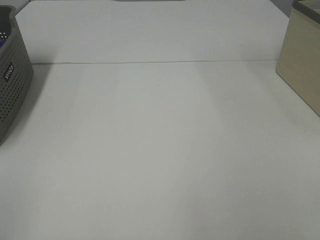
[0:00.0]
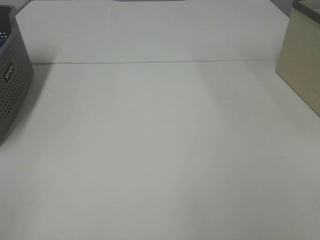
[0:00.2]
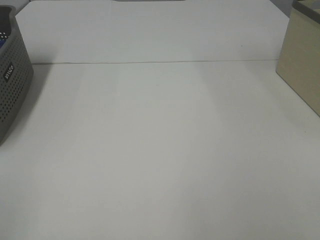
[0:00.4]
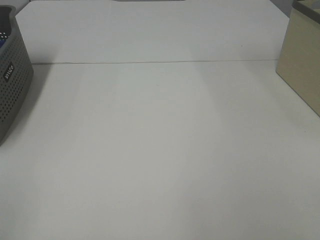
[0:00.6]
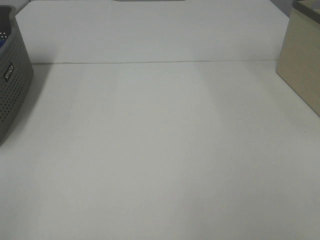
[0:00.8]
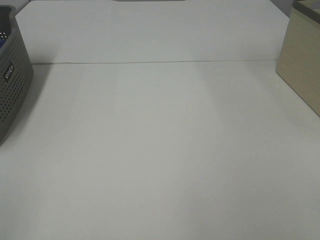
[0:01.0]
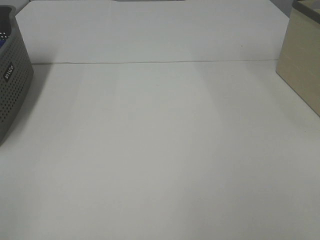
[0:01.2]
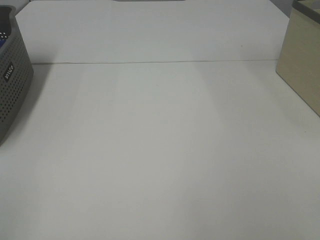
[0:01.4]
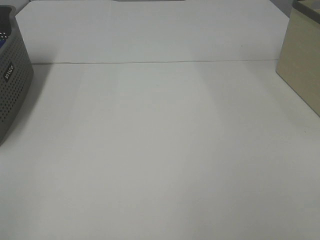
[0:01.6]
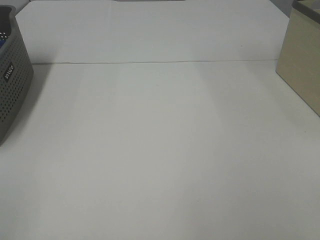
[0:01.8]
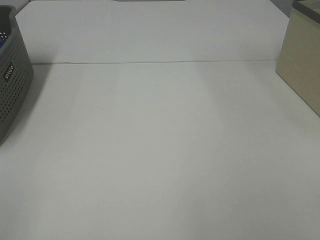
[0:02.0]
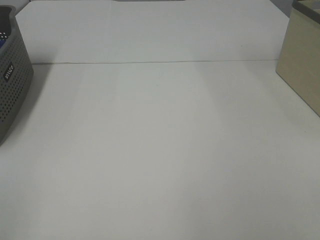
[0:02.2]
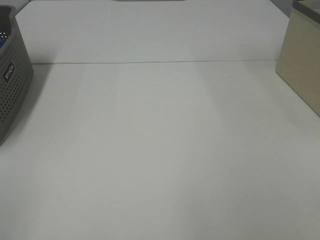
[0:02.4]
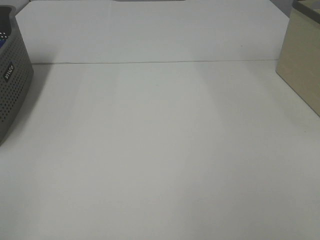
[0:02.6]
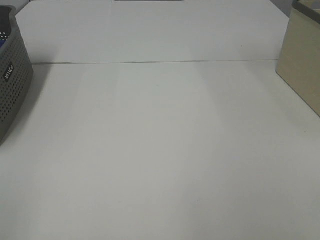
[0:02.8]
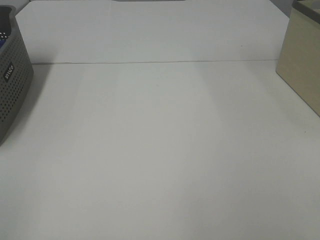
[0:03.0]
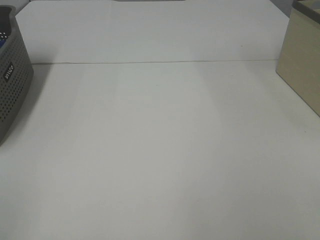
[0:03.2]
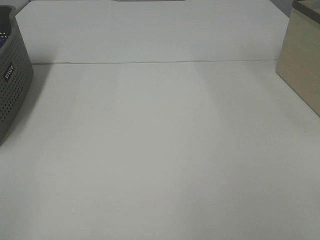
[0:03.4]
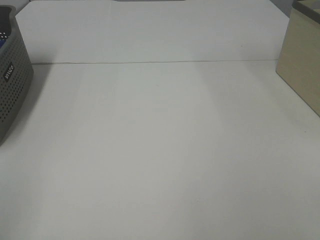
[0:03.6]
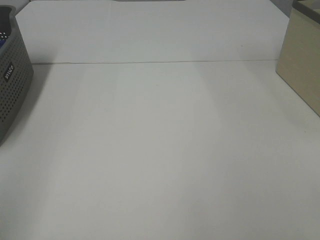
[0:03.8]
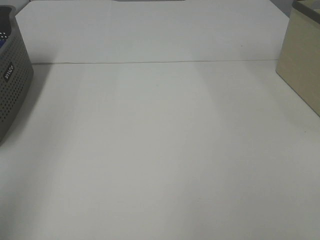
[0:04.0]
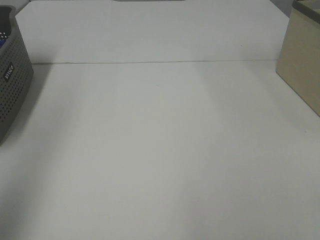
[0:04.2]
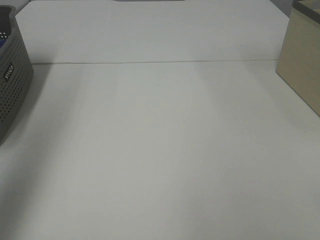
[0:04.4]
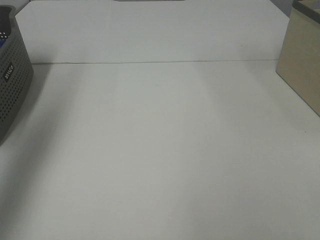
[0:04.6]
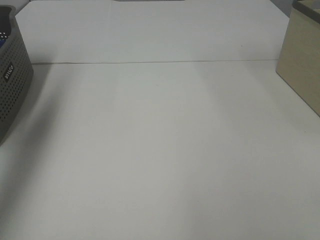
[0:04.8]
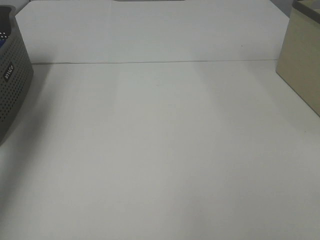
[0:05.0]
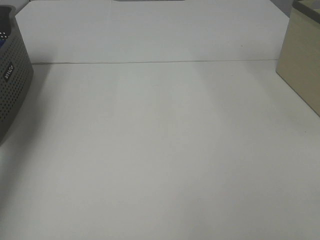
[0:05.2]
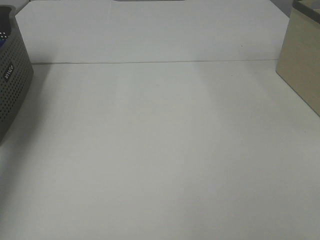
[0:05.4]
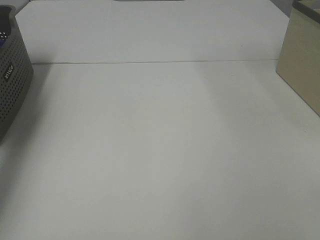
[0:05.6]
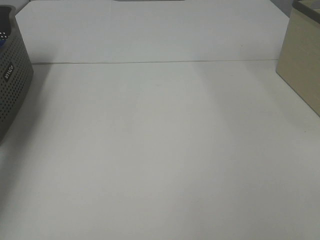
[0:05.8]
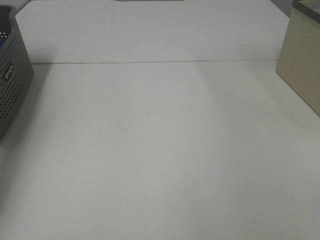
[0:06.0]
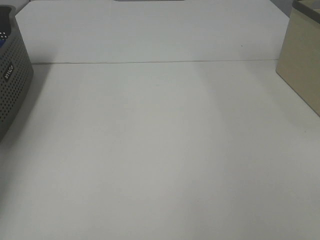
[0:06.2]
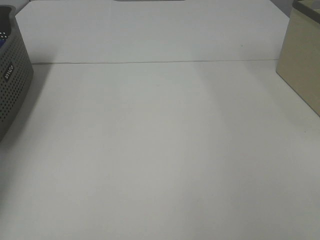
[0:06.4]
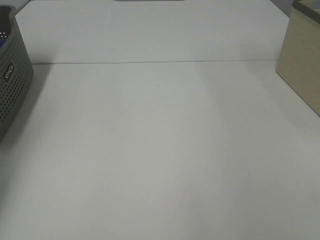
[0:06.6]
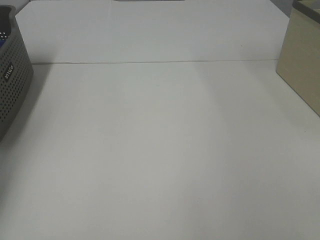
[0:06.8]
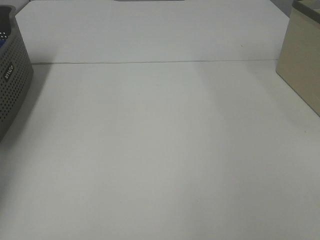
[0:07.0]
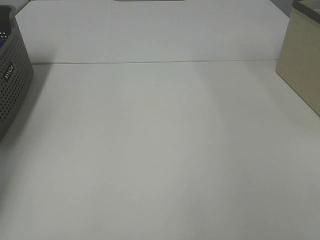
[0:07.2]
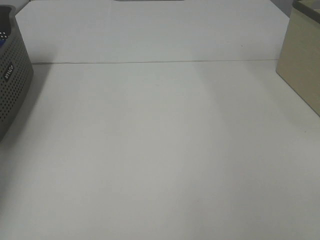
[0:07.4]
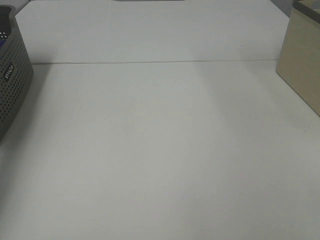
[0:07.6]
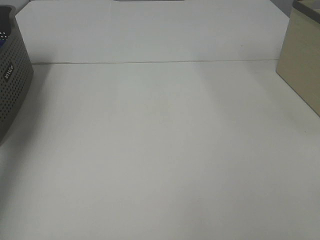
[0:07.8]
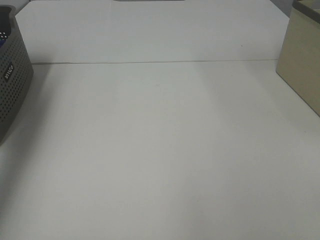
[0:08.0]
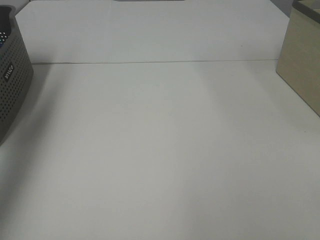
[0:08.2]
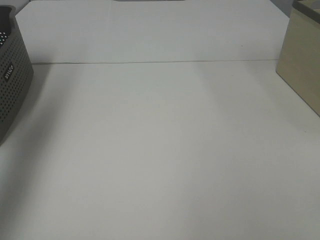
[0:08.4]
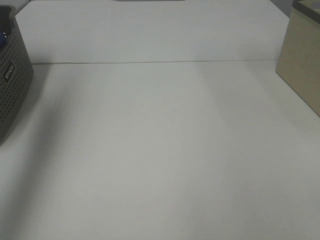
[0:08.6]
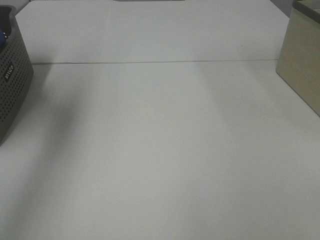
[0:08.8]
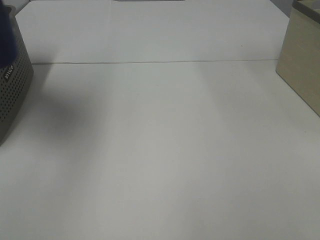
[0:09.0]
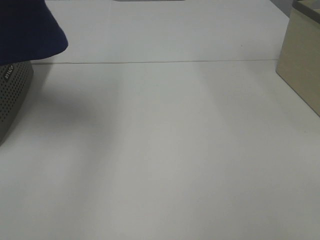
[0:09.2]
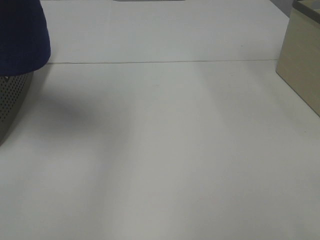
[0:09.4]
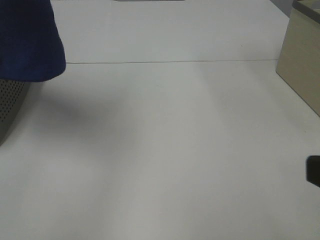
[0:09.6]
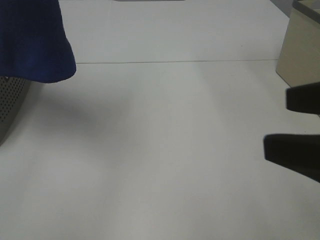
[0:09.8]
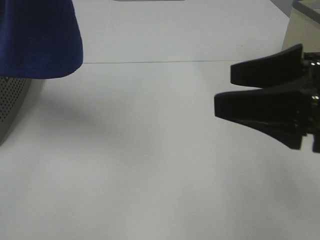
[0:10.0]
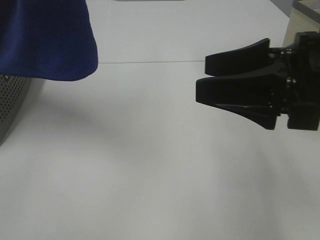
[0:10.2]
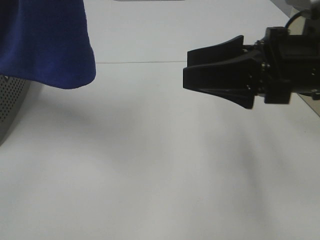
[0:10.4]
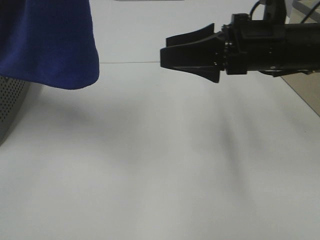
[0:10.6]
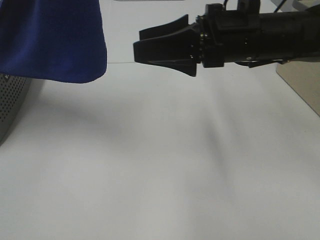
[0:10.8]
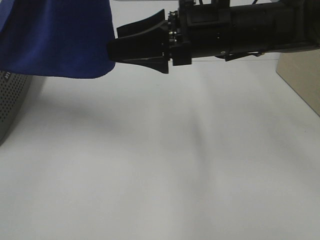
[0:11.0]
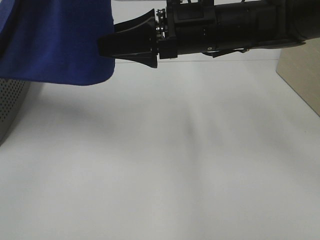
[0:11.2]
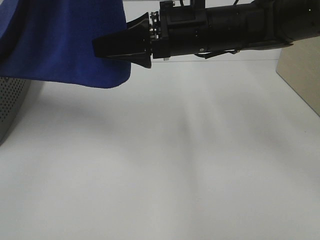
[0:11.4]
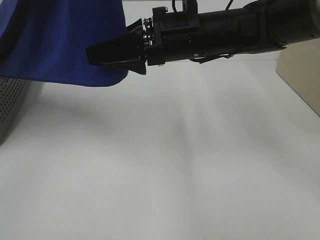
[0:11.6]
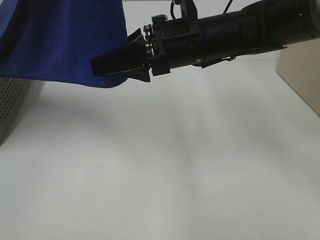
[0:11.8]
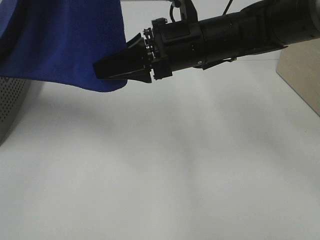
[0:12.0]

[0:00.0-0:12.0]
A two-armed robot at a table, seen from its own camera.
Task of the whole recording: Remove the towel and place it.
0:00.0 to 0:03.0: Both grippers stay put.
0:03.0 to 0:04.4: The left gripper moves forward and upward, some 30 cm.
0:04.4 to 0:06.0: The left gripper moves downward and forward, about 35 cm.
0:07.6 to 0:09.0: The left gripper heads upward, backward and to the right, covering about 35 cm.
0:09.0 to 0:10.4: The right gripper travels forward and to the left by some 30 cm. The left gripper is displaced to the right by approximately 10 cm.
0:10.4 to 0:12.0: The right gripper moves to the left and forward, some 15 cm, and closes its fingers.

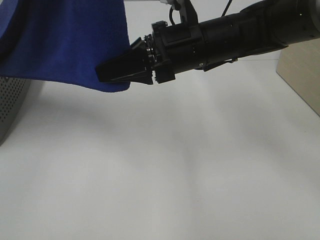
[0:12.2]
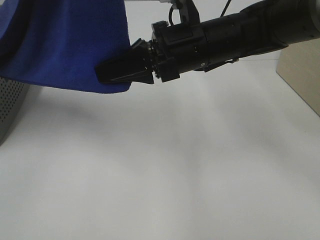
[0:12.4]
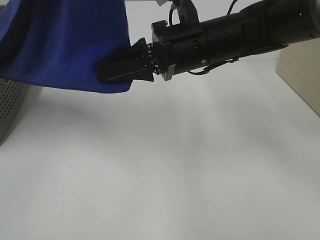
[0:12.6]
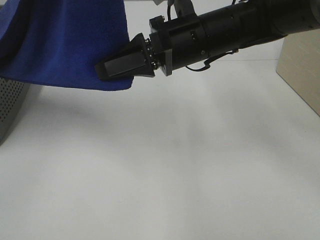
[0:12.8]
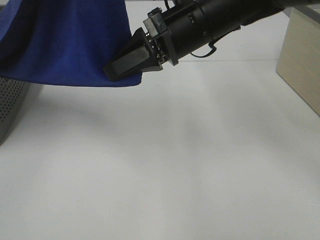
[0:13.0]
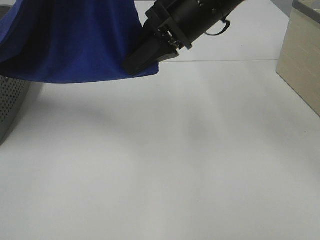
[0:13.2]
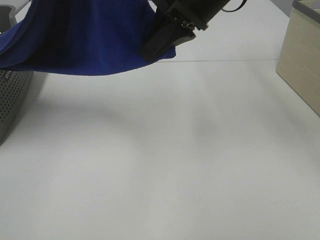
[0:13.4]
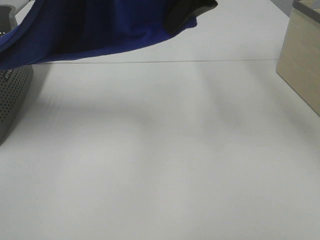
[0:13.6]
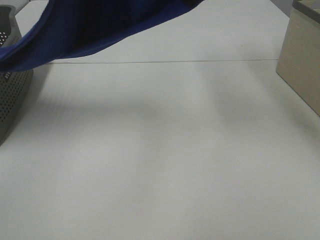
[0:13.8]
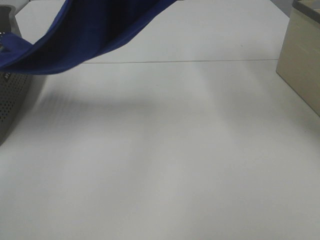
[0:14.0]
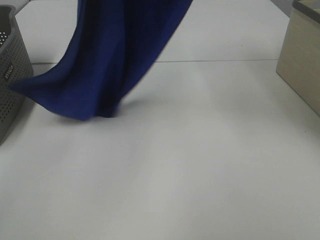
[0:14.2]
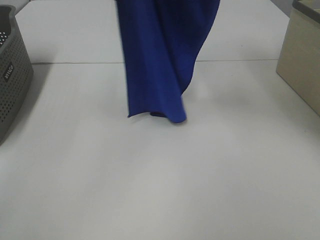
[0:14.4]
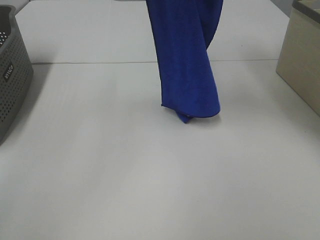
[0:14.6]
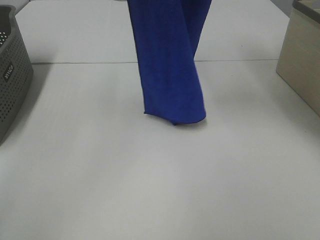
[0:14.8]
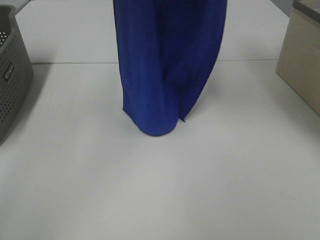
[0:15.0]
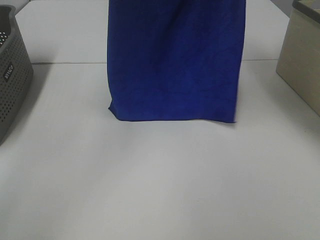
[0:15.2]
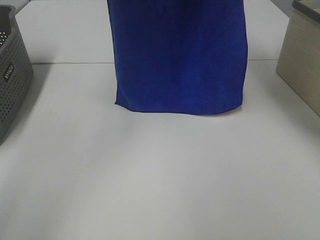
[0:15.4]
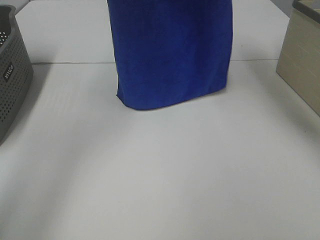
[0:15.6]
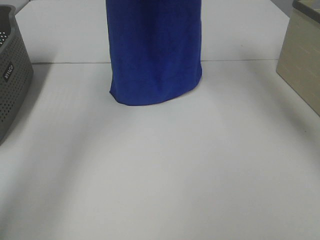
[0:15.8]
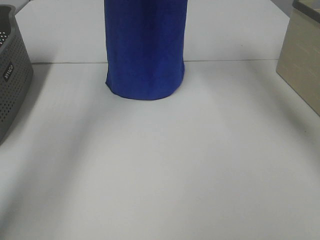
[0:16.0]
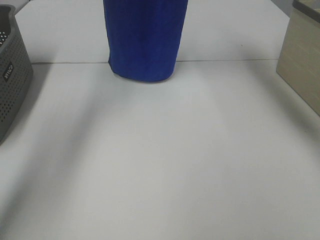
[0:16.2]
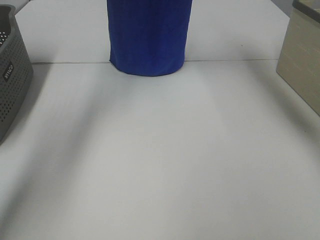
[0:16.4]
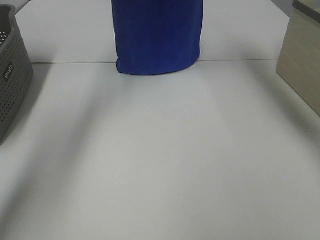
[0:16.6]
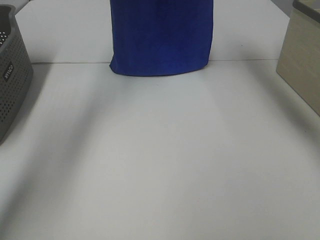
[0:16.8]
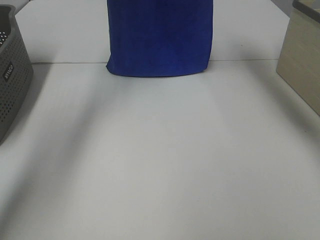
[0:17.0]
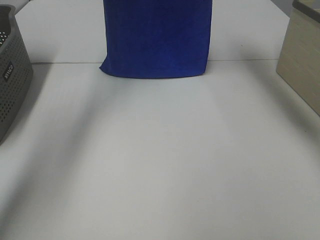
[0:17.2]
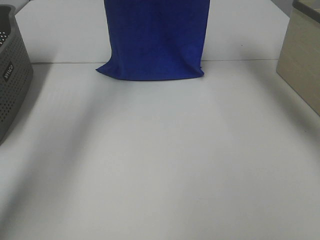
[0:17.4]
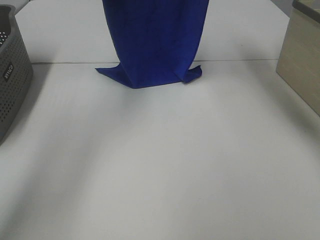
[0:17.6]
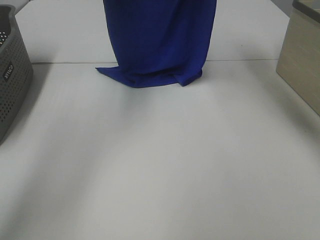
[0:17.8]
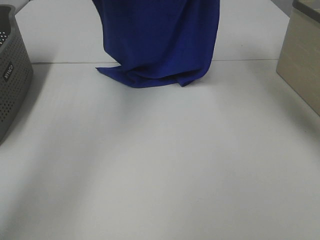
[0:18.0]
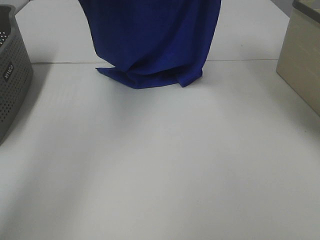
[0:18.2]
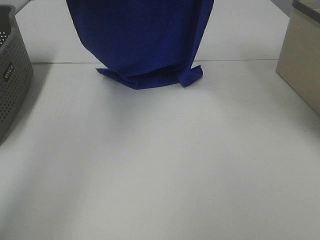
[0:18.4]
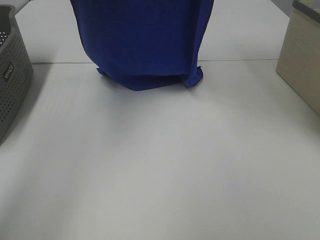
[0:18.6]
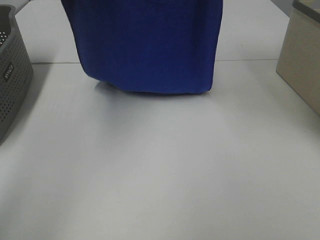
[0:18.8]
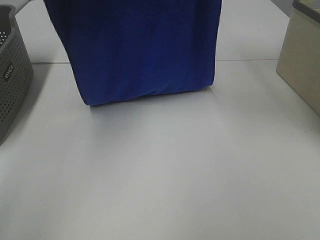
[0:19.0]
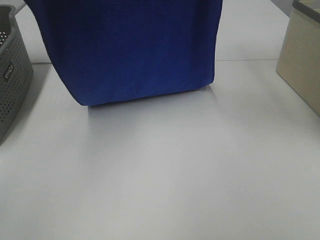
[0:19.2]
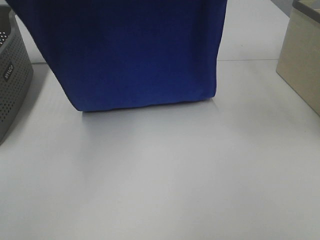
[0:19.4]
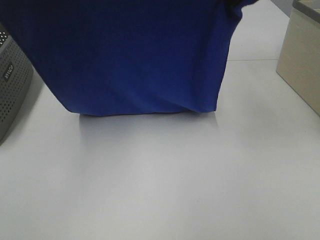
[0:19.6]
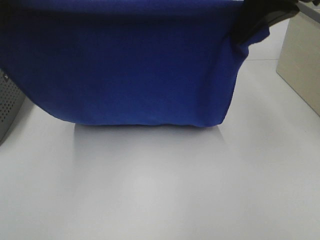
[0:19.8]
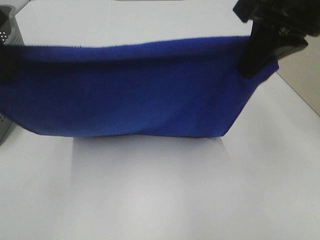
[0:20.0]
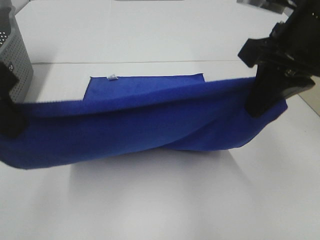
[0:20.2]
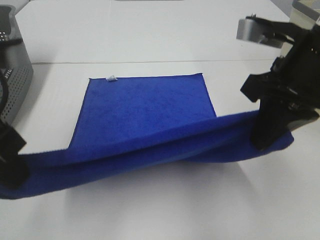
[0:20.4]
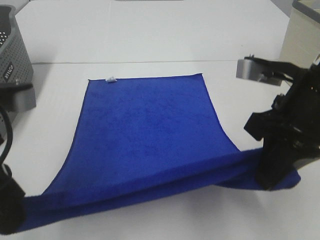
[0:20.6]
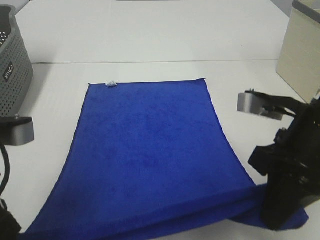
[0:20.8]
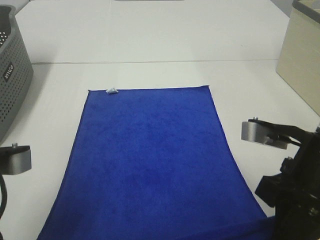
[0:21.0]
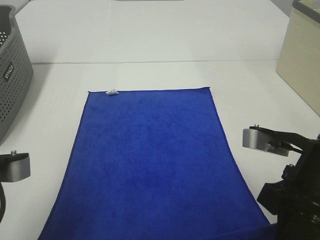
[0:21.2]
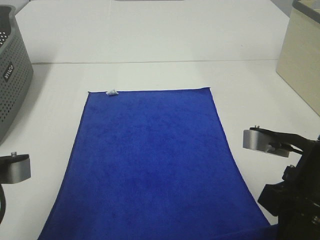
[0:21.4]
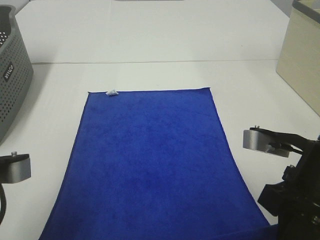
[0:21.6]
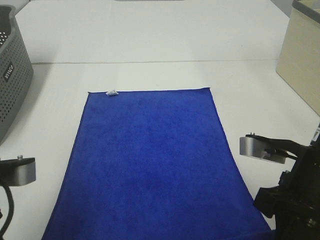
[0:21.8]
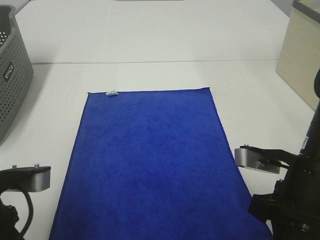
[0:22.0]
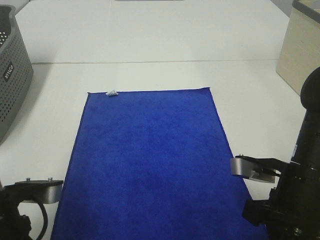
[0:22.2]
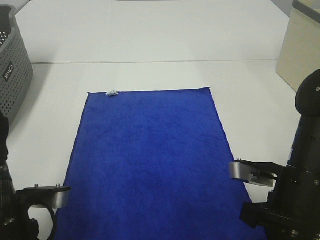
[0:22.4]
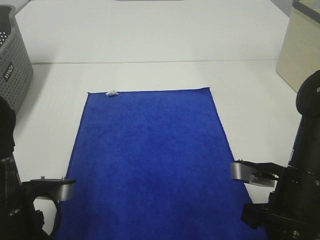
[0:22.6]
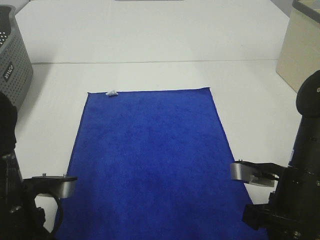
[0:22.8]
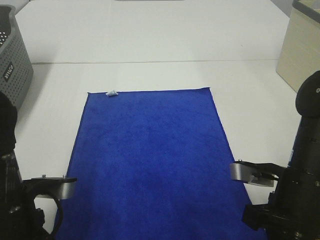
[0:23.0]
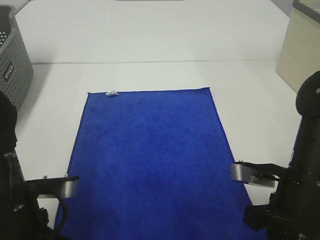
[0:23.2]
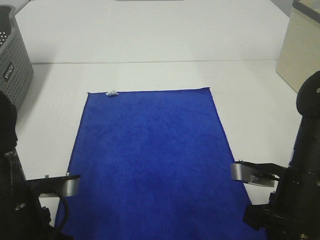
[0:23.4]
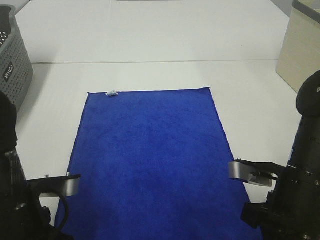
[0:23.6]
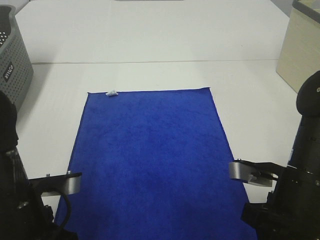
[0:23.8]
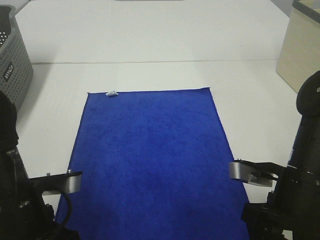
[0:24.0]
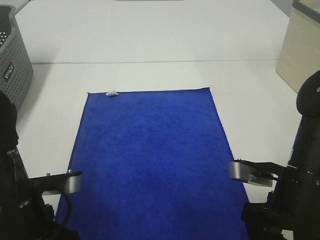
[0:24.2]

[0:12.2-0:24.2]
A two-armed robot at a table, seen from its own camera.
Task of the whole recording: Remove the towel and place it.
Step, 0:12.4 to 0:19.2: Left hand: spread the blue towel flat on the table.
Step, 0:12.4 to 0:19.2: Right hand: spread the blue towel flat on the table.
0:12.2 to 0:13.8: The right gripper travels upward by about 15 cm, while the left gripper shifts roughly 5 cm forward.
0:13.8 to 0:15.2: The left gripper heads forward, covering approximately 5 cm; the right gripper travels upward by approximately 10 cm.
0:15.2 to 0:16.6: The left gripper shifts about 15 cm forward. Meanwhile the right gripper travels forward and downward by some 10 cm.
0:16.6 to 0:18.2: Both grippers travel together backward, about 5 cm.
0:18.2 to 0:19.8: The right gripper goes roughly 15 cm backward and downward, while the left gripper travels backward by approximately 20 cm.
0:19.8 to 0:21.2: Both grippers travel together downward and backward, approximately 20 cm.
0:21.2 to 0:22.6: The two grippers go some 5 cm downward.
0:22.6 to 0:24.2: The right gripper opens; the left gripper opens its fingers.
